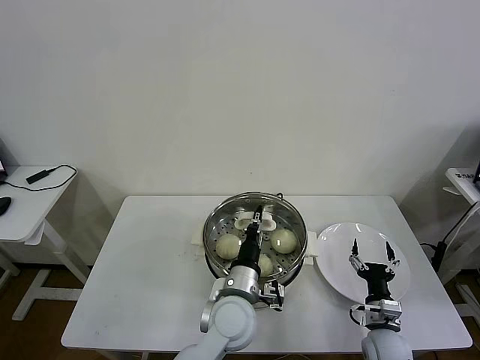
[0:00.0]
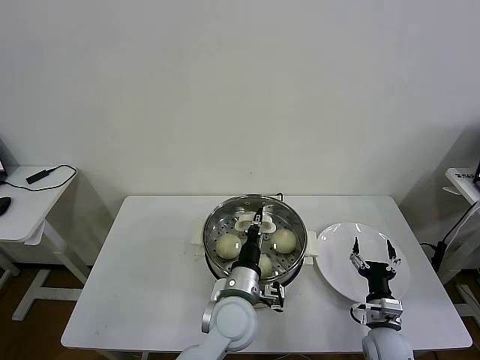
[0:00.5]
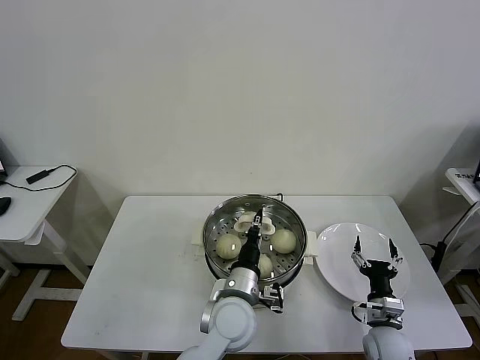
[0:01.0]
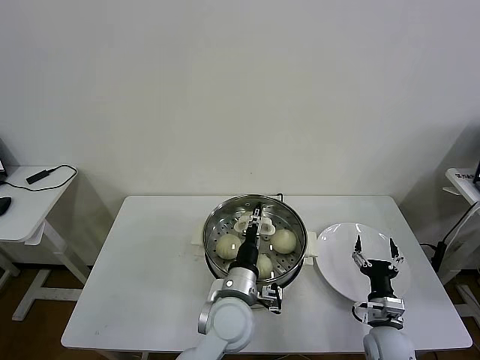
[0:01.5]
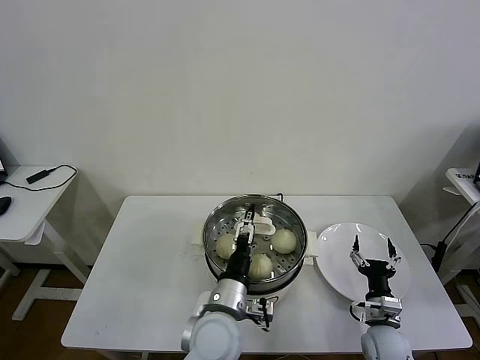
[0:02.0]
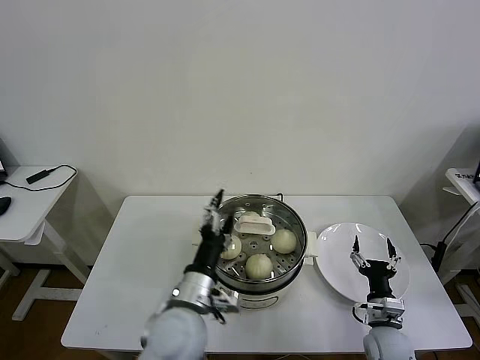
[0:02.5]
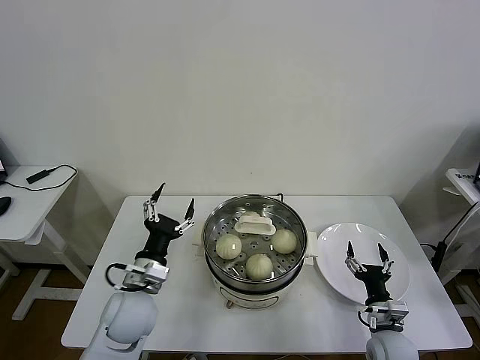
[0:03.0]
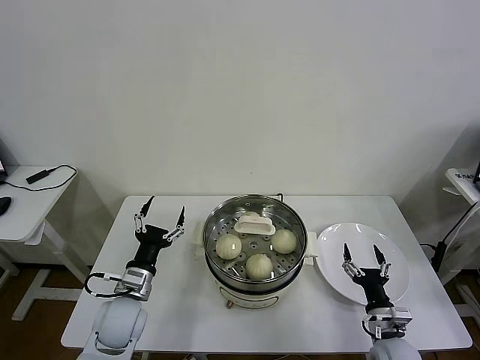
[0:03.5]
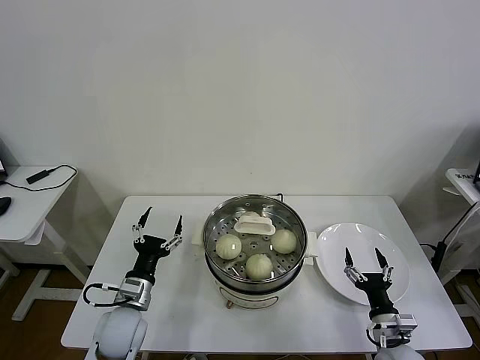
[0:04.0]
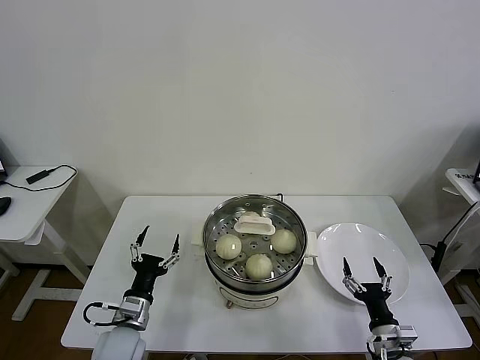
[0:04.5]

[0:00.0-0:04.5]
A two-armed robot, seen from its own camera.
Task of the whole recording: take steamed baozi put them in steamer then cover it.
0:00.0 to 0:02.0: The left gripper opens its fingers.
0:02.0 to 0:04.5: The right gripper goes approximately 5 cm backward. The left gripper shifts about 25 cm to the left and downward.
